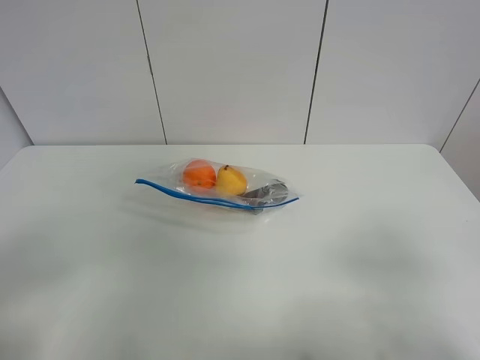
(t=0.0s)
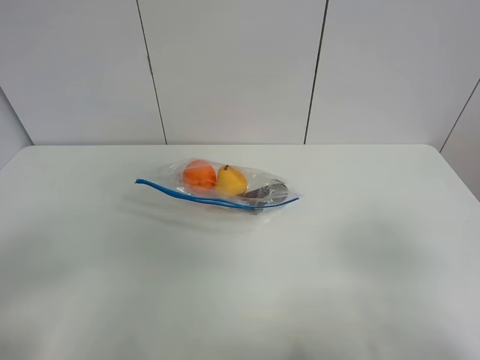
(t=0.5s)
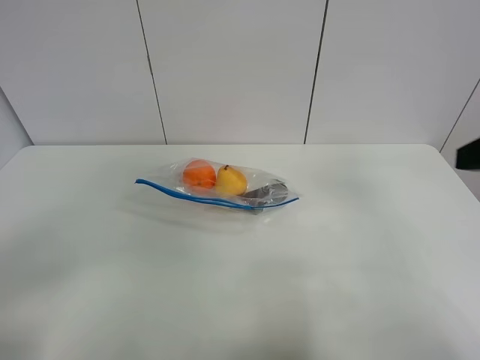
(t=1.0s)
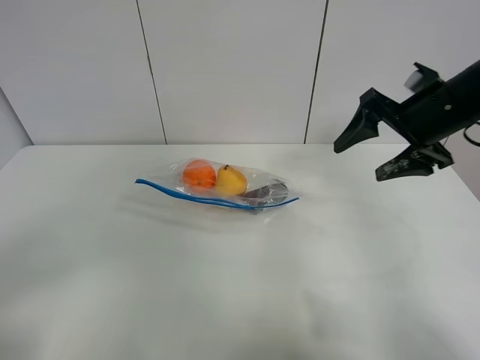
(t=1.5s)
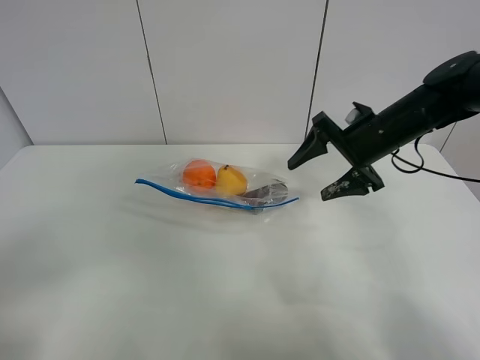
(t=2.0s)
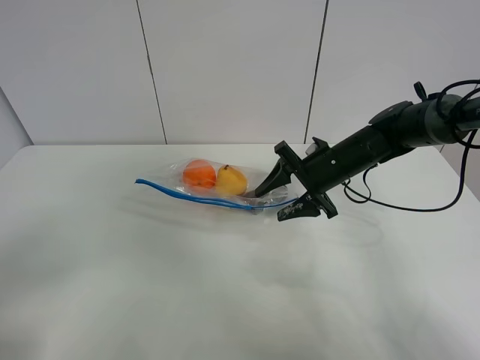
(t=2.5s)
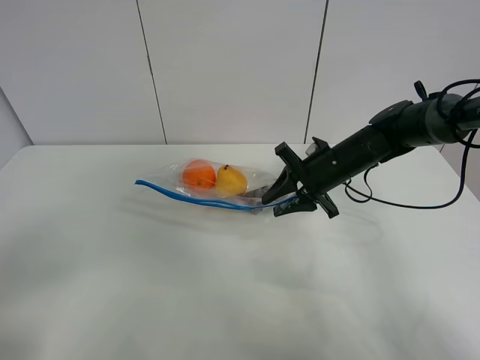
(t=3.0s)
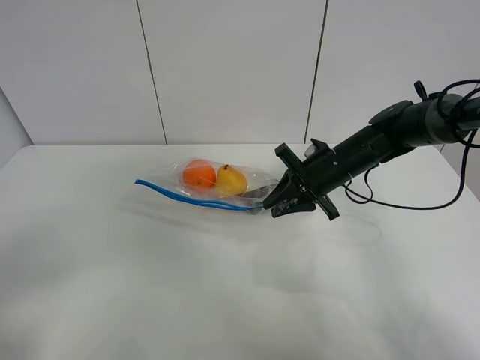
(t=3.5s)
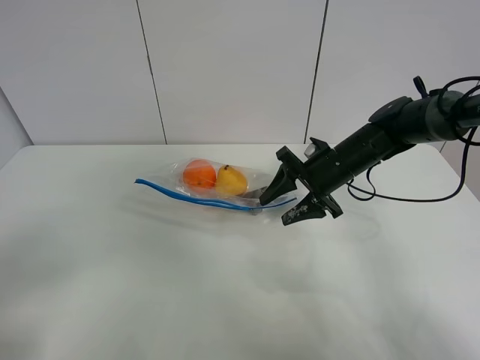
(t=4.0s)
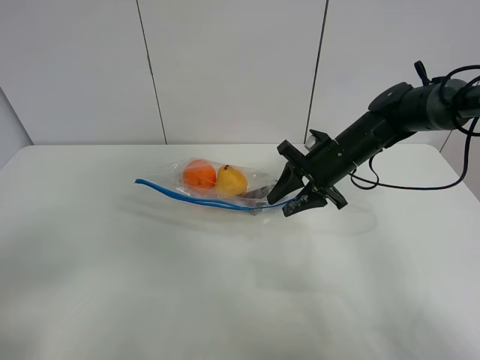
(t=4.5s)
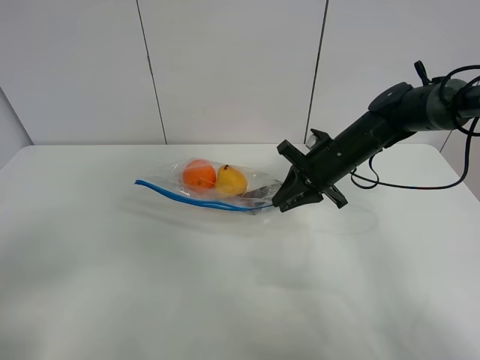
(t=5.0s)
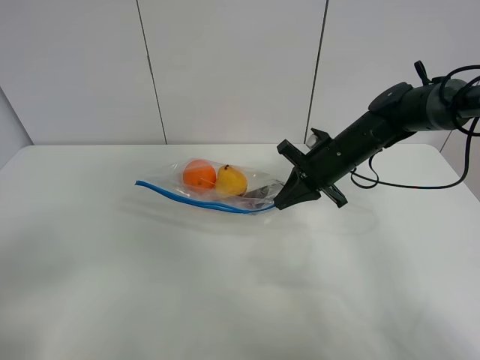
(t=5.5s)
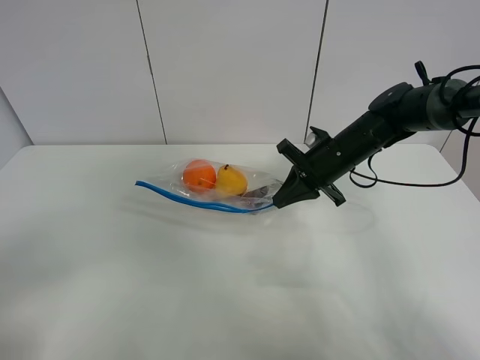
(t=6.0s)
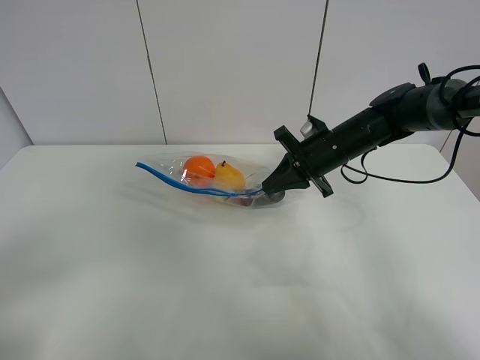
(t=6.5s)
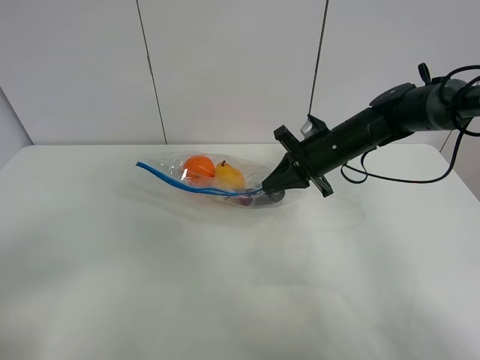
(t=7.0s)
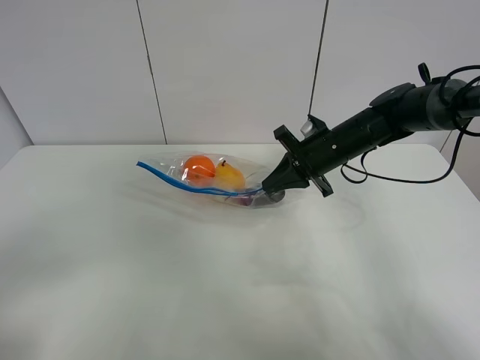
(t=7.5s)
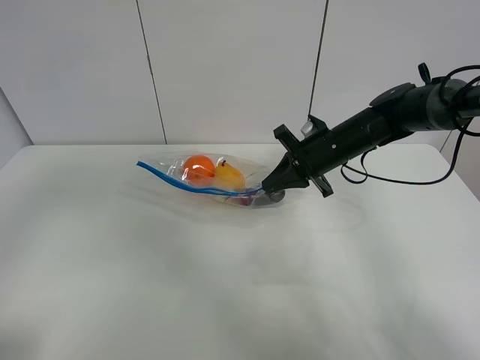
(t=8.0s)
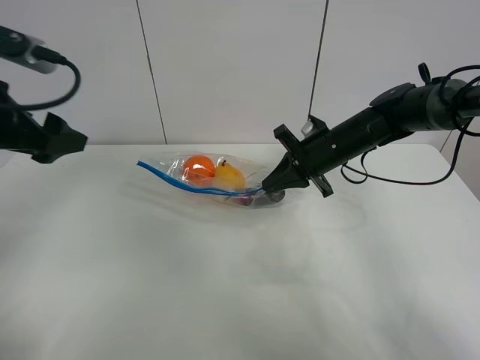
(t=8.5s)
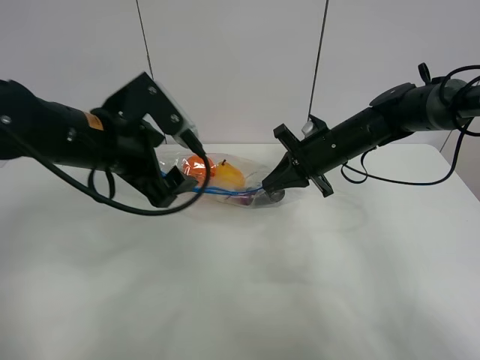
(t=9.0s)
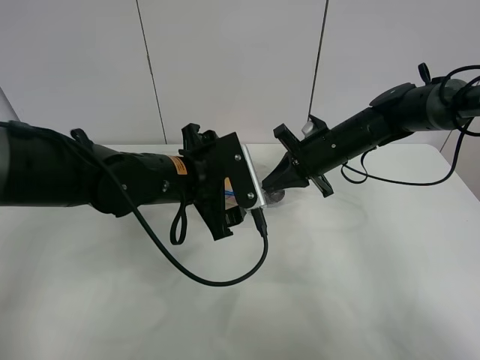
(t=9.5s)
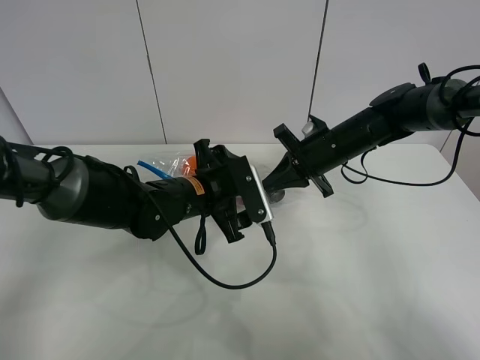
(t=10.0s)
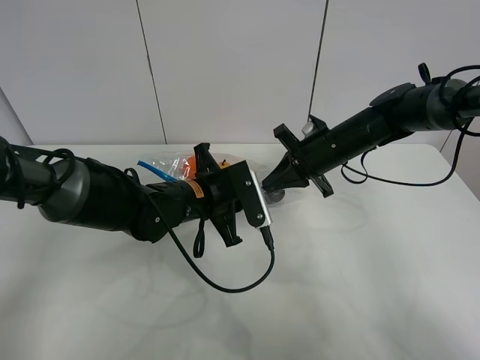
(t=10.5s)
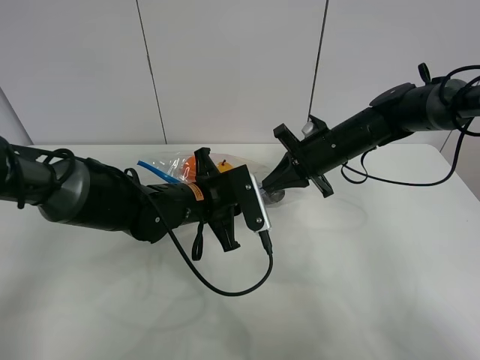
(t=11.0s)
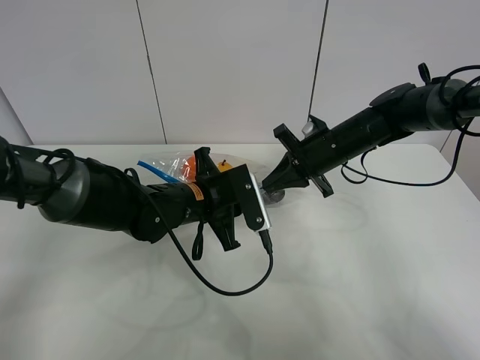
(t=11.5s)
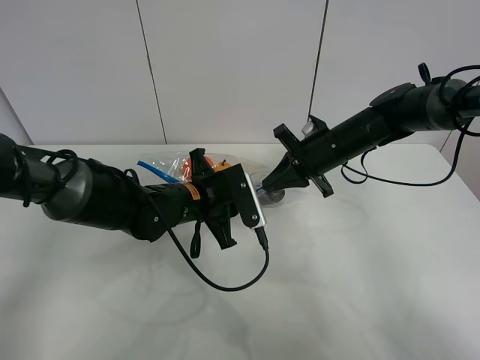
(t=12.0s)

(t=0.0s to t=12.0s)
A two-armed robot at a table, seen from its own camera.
Step, t=0.0s - t=5.0s: Grasp the fruit bag with right gripper.
Step, t=5.5s - t=6.5s: Lift the fruit bag with your right gripper.
t=0.0s - t=2.0s: The right gripper is displaced forward by about 35 cm.
t=2.0s - t=4.0s: The right gripper shifts approximately 5 cm downward, and closes and opens again.
t=4.0s - t=6.0s: The right gripper closes up.
t=6.0s - t=8.0s: The left gripper is displaced forward and upward by some 15 cm.
t=8.0s - t=10.0s: The left gripper goes roughly 35 cm to the right, downward and forward.
t=10.0s - t=12.0s: The left gripper closes its fingers.

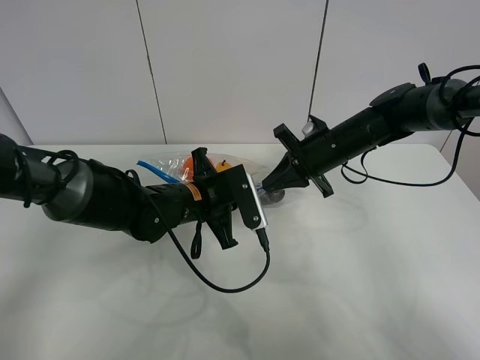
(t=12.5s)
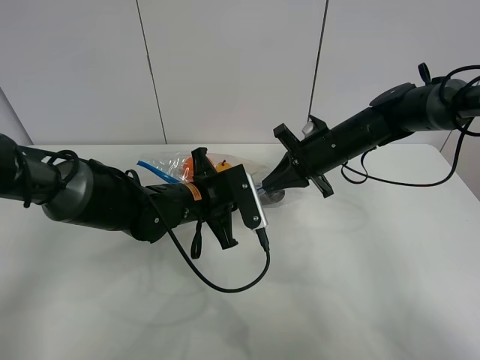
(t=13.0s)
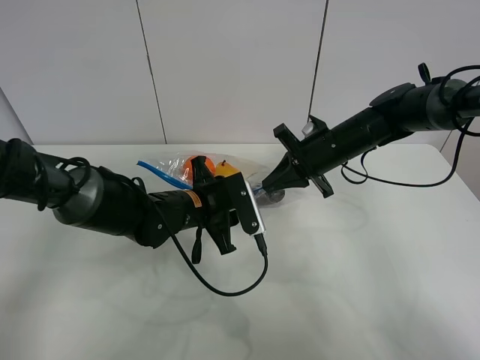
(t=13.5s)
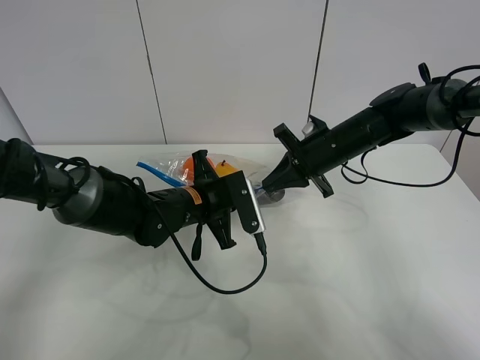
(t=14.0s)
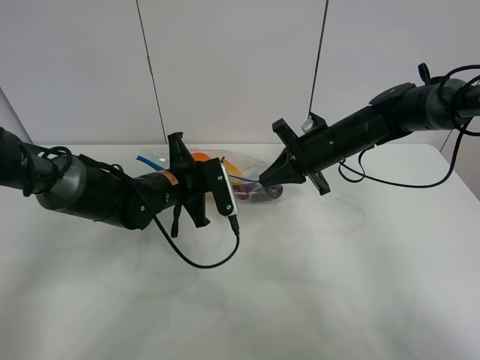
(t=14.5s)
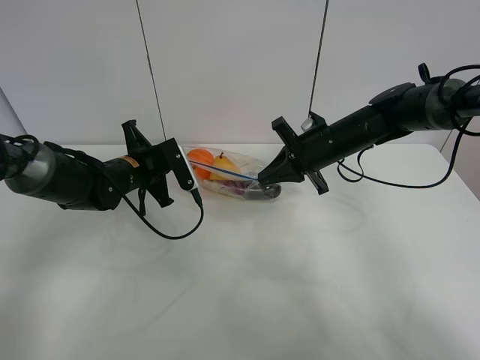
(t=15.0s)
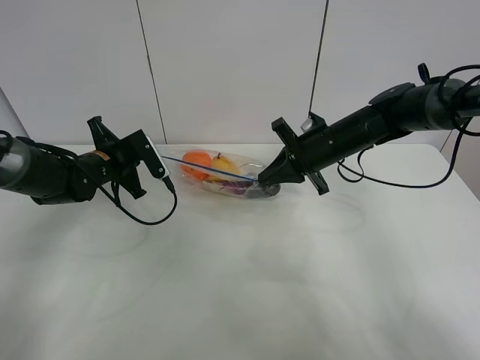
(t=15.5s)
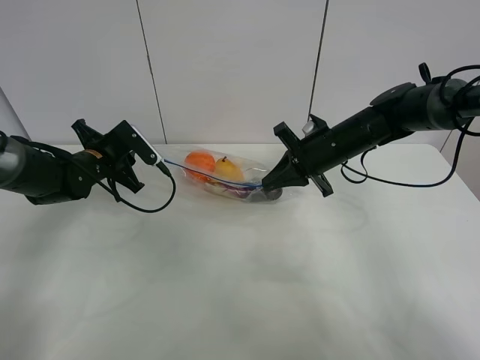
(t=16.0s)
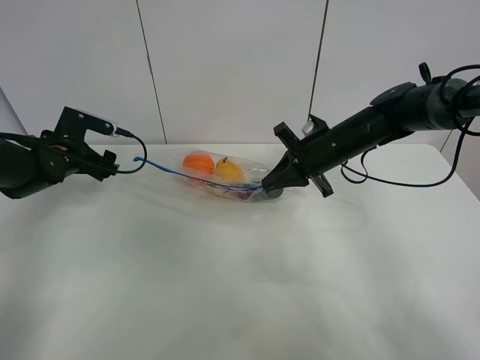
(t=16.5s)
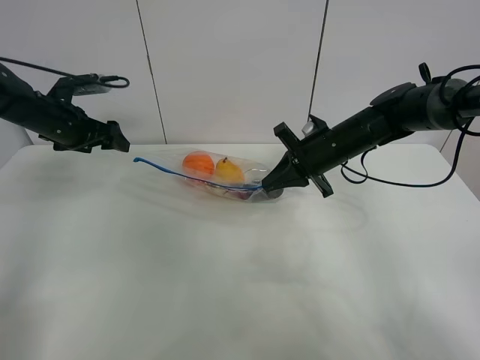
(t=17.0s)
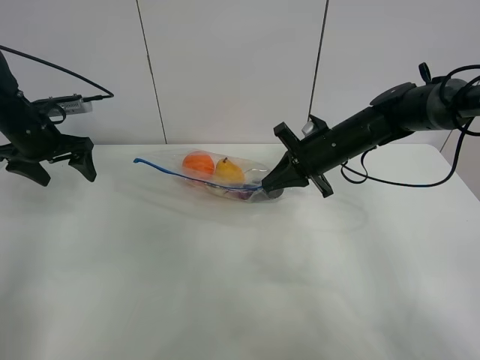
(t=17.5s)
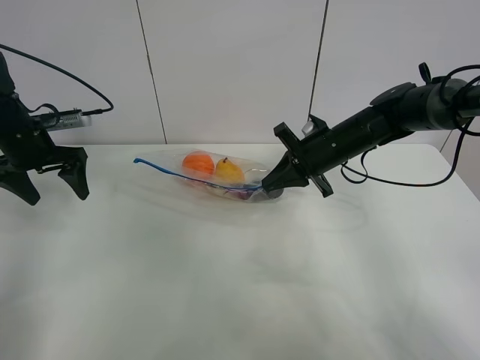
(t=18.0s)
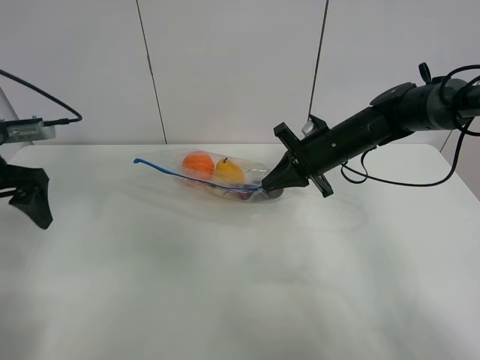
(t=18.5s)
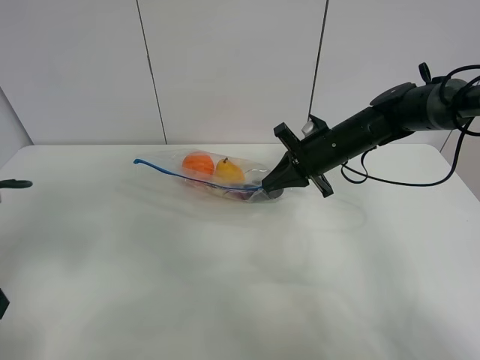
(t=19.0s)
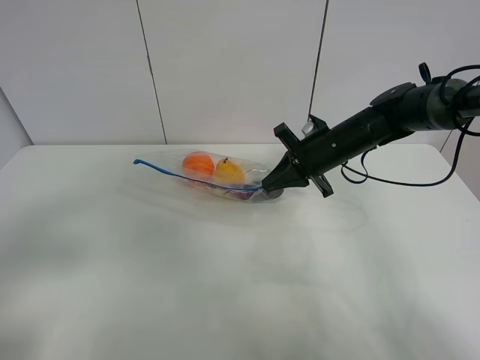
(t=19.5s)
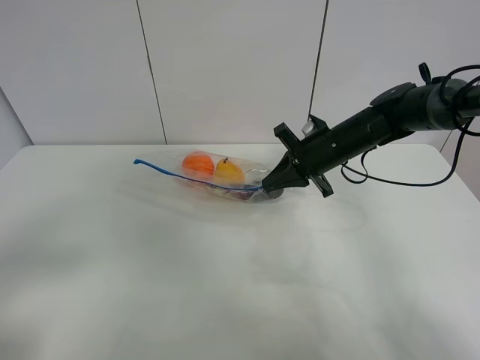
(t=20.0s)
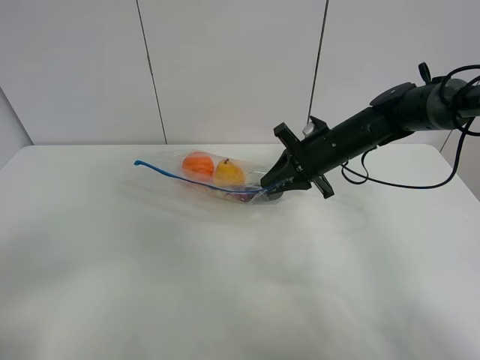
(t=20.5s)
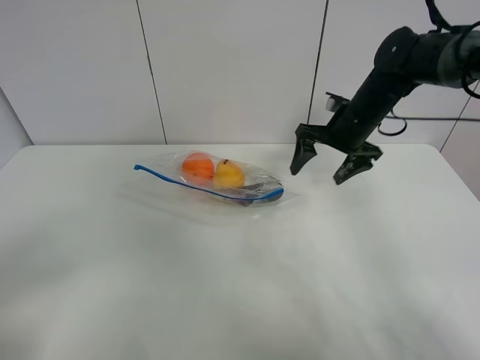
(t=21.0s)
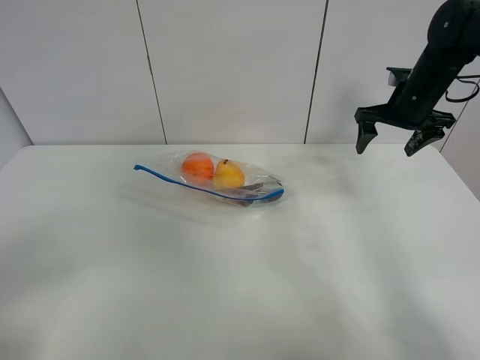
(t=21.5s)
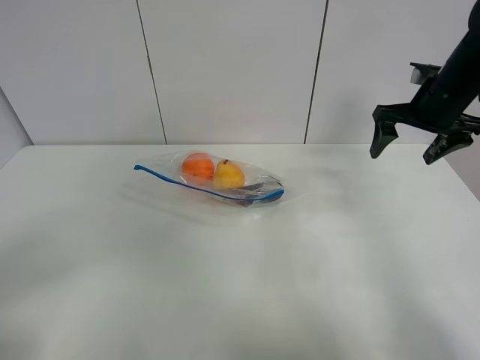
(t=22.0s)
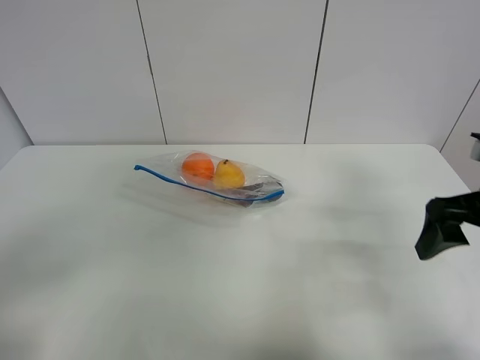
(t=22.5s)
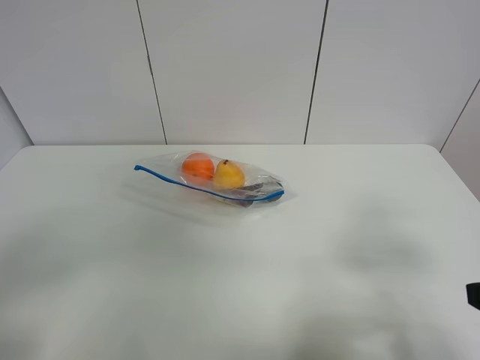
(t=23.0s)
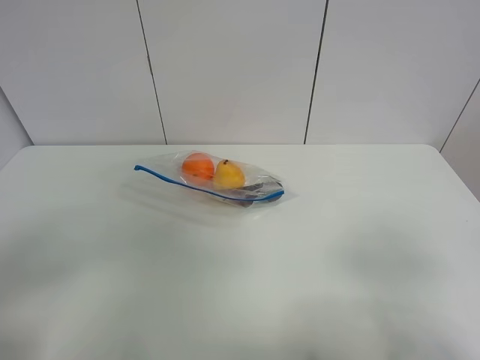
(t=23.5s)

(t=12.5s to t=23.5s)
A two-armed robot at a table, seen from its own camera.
Step, t=12.5s - t=16.0s: Pull the fruit bag with left gripper.
t=12.5s - t=14.5s: The left gripper travels to the left by approximately 5 cm, and opens and closes again.
t=14.5s - t=16.0s: The left gripper moves to the left, some 15 cm, and opens its fingers.
t=16.0s - t=18.0s: The left gripper is displaced upward and to the left by about 10 cm, and opens.
t=18.0s - t=20.0s: The left gripper heads backward, covering about 35 cm.
t=20.0s - t=21.5s: The right gripper shifts about 15 cm to the right and upward, and opens.
t=21.5s - t=23.5s: The right gripper shifts about 40 cm backward.
